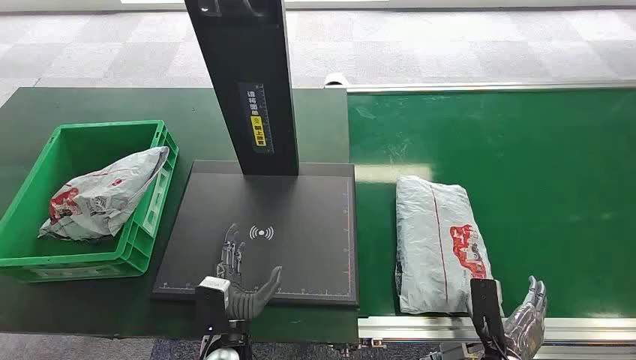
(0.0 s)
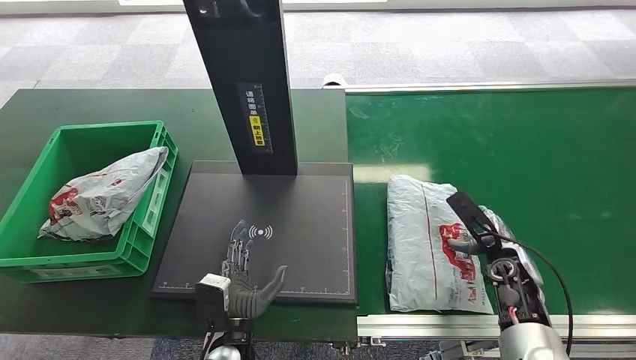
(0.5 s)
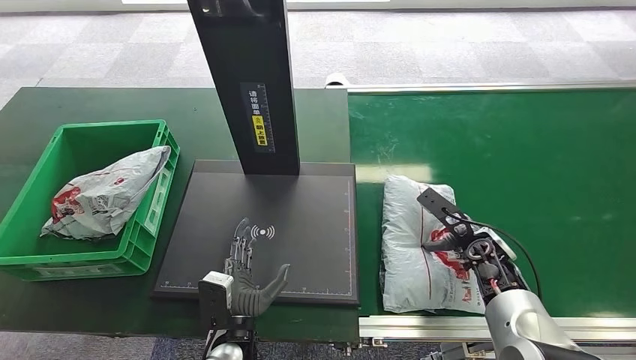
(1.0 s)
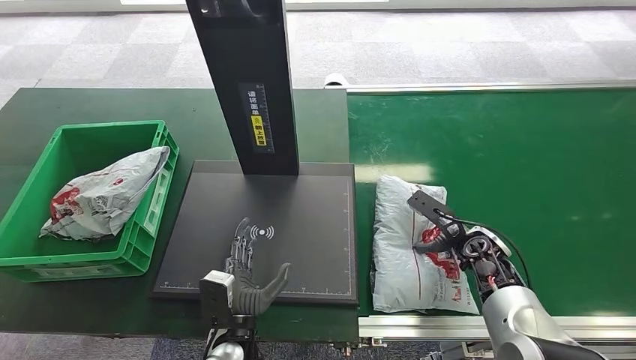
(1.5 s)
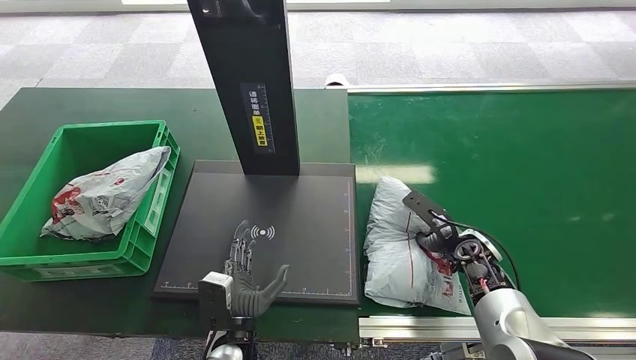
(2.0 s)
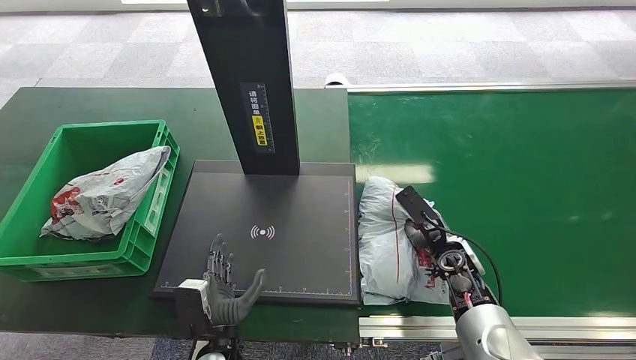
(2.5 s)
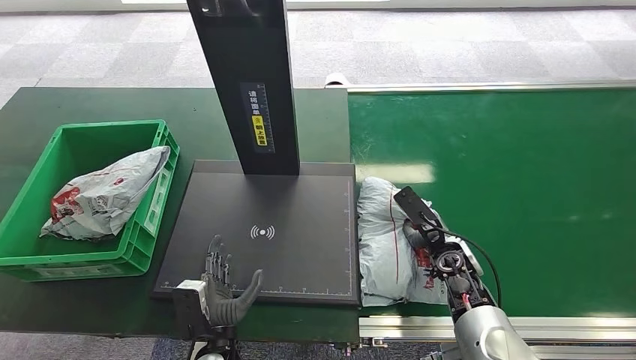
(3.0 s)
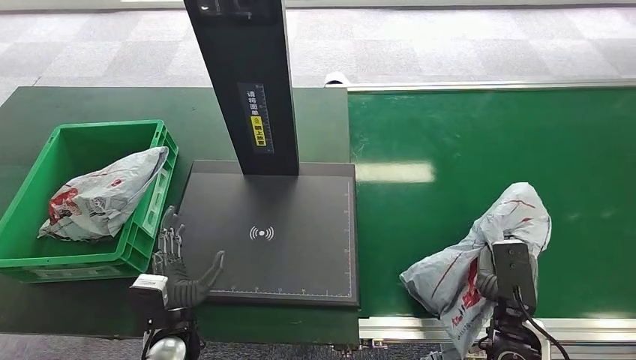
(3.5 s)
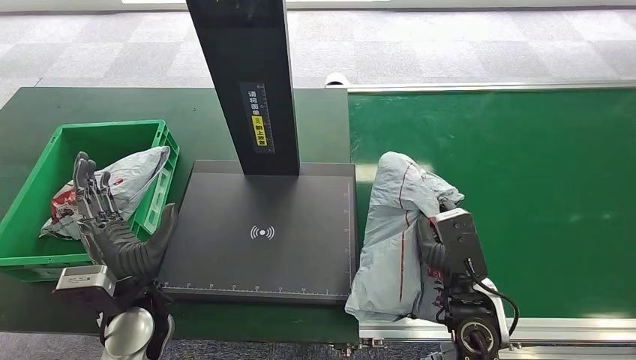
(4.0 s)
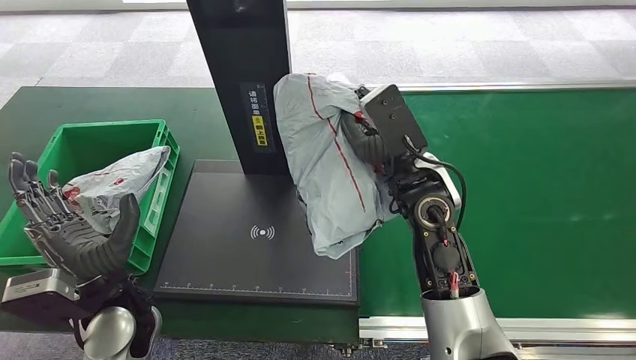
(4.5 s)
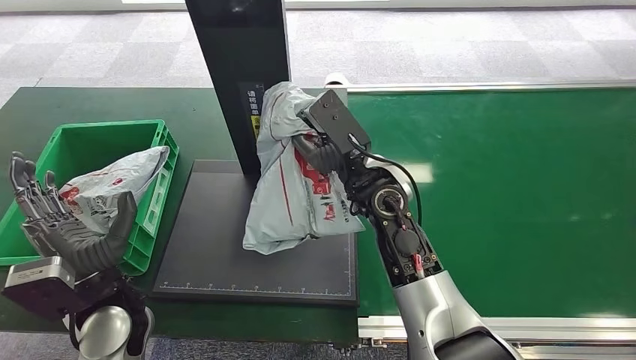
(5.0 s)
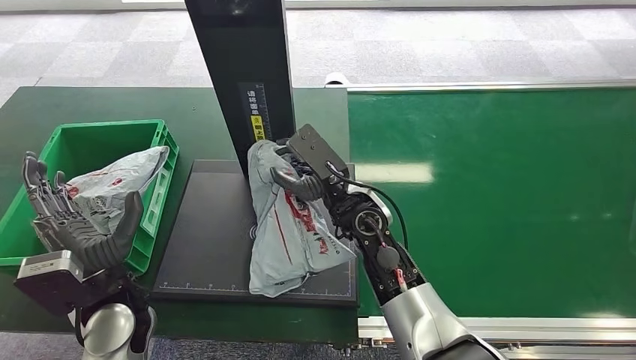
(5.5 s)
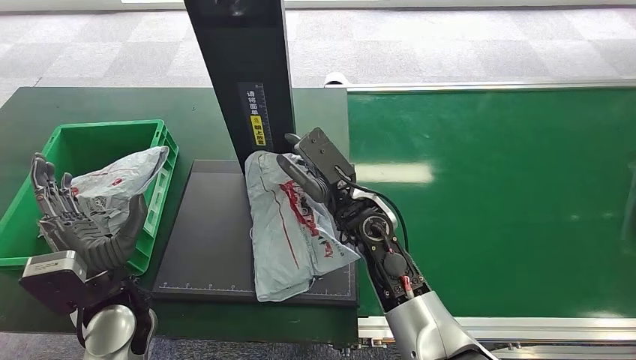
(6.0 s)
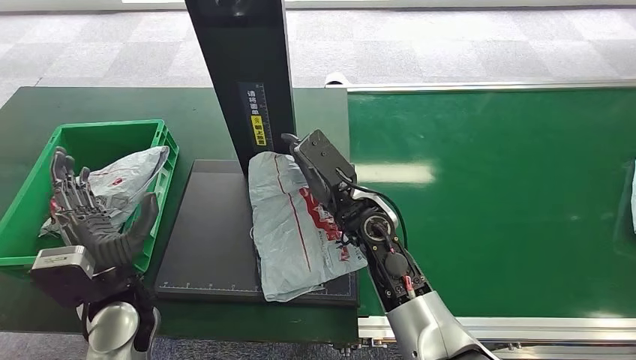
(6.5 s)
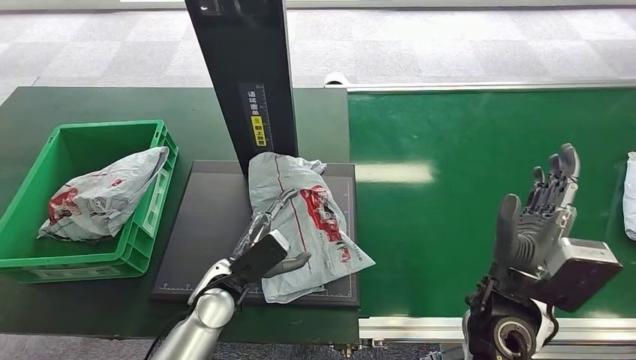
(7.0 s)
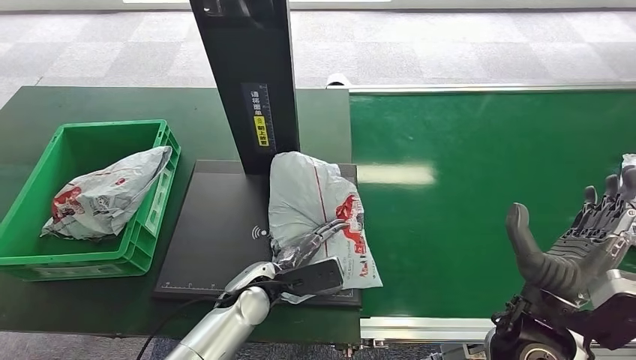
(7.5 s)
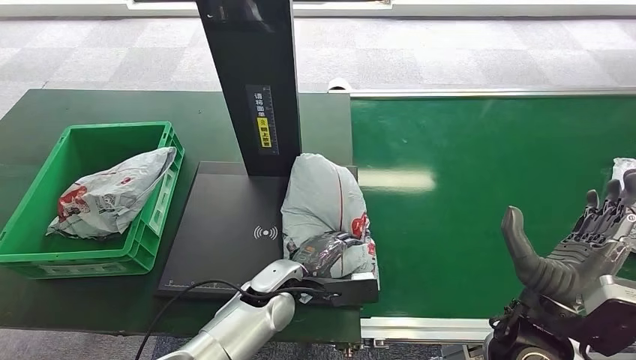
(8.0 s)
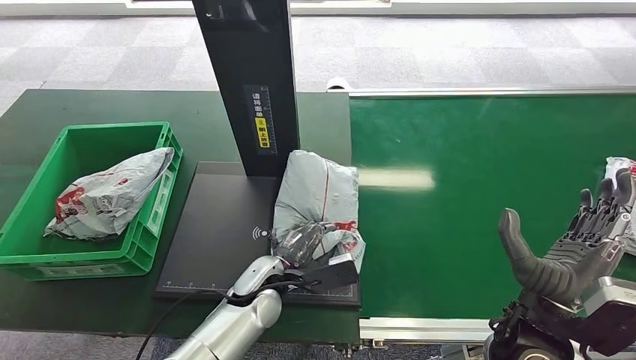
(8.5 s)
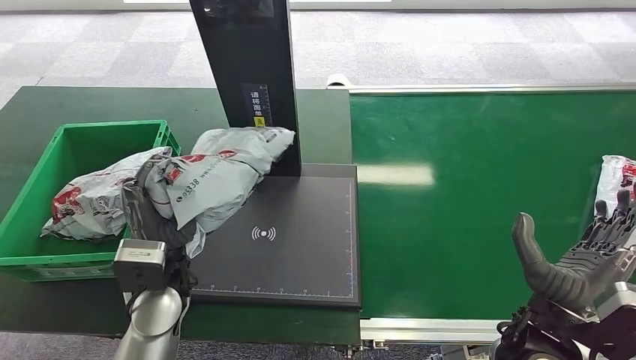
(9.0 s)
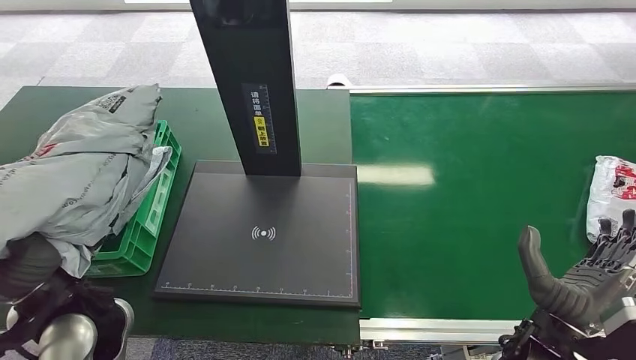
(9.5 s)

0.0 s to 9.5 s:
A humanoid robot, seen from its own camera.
Step, 0.0 to 3.5 s: Pick up the package from the conveyor belt.
Step, 4.5 to 6.5 s: Place the package onto the inbound machine.
Step, 7.0 to 9.0 s: Pick up the package from the inbound machine.
2.0 to 4.0 s: The left hand moves upward, to the left and forward, some 15 cm. The right hand moves backward, to the left and upward, approximately 15 cm.

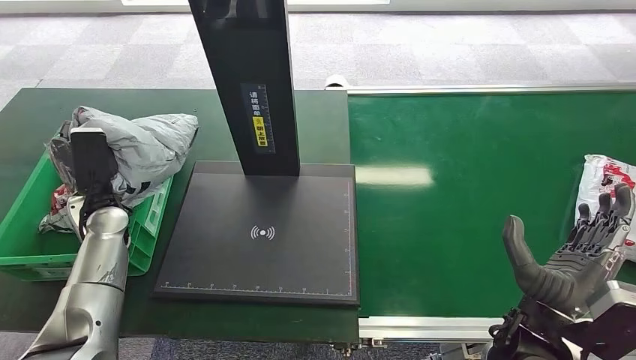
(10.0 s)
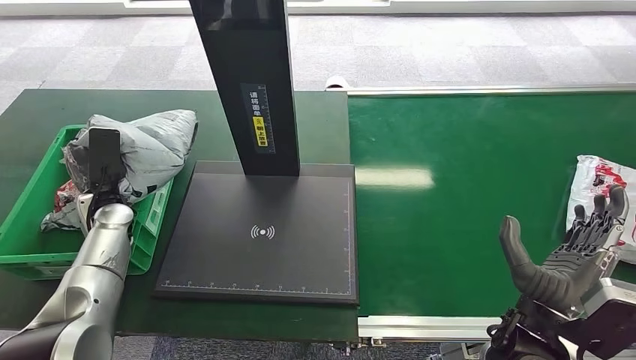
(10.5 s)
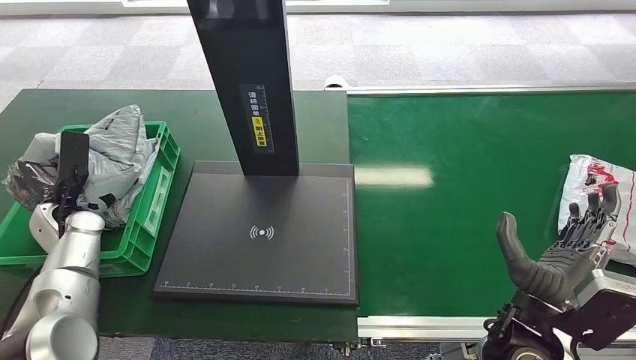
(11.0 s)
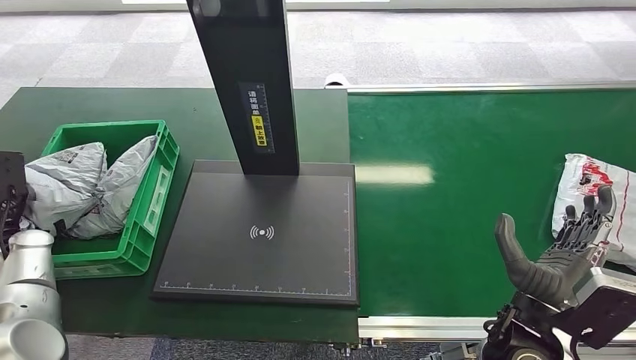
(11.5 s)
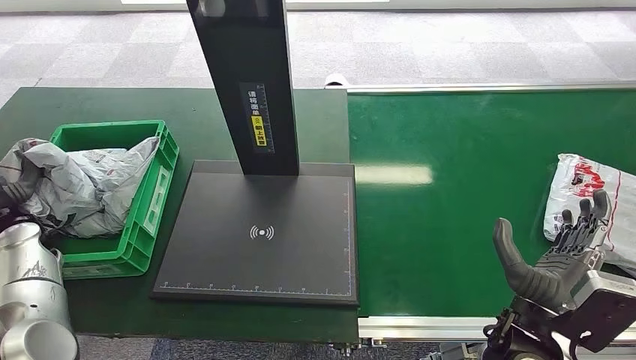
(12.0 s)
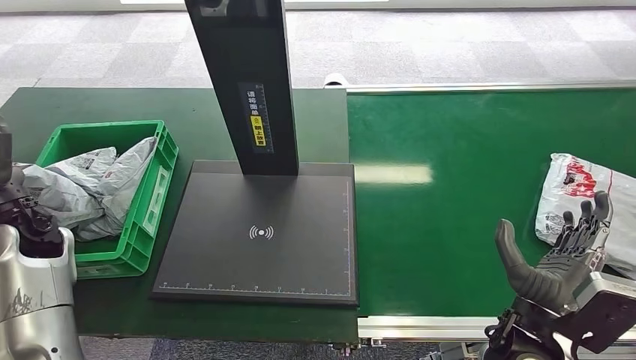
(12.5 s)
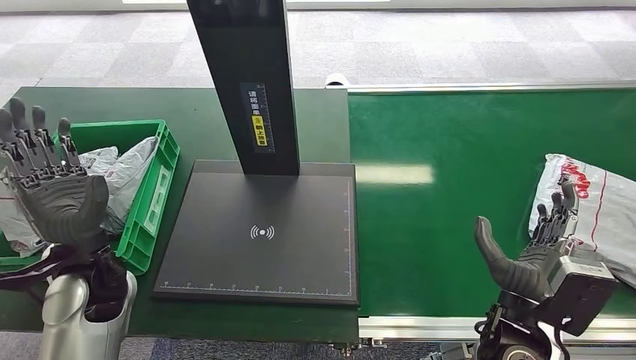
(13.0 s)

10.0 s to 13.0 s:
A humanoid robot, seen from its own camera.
Step, 10.0 to 13.0 s: Place the package into the parcel locker.
11.5 to 13.0 s: The left hand shifts approximately 20 cm to the right.
